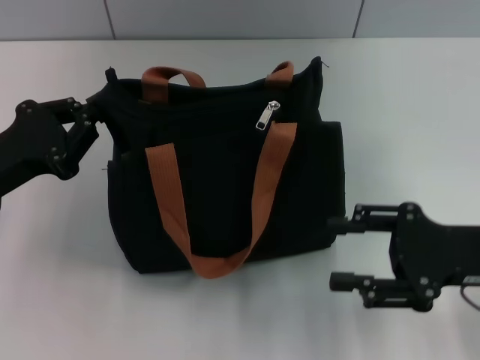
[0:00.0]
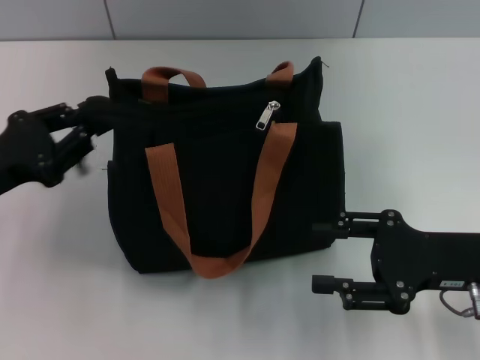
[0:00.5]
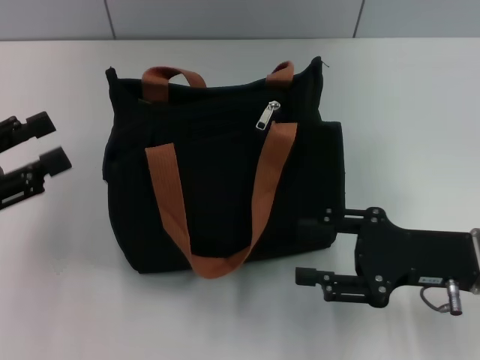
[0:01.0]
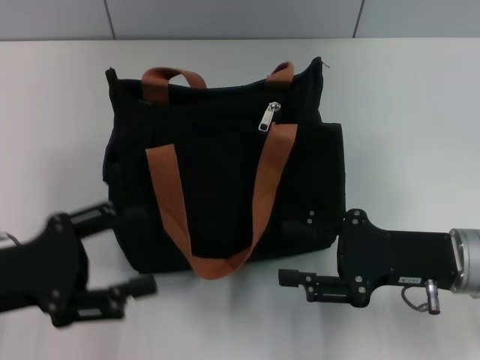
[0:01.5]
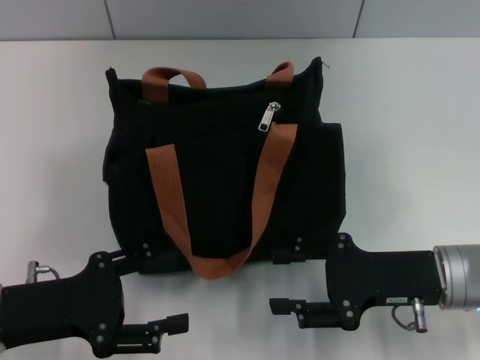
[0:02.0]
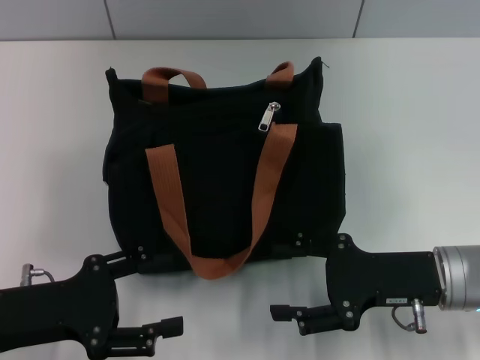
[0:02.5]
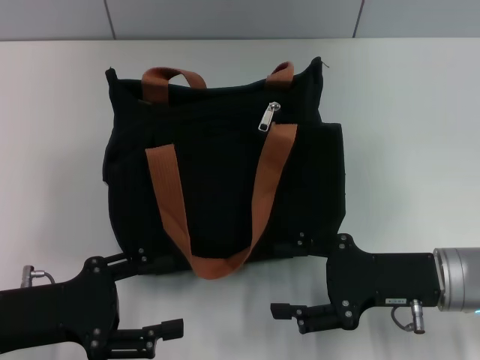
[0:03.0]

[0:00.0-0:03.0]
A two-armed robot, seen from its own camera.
0:00.0 to 0:01.5: The left gripper shifts some 5 cm backward, and opens up.
0:01.5 to 0:03.0: The grippers move only a little.
